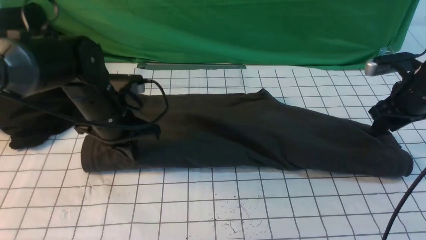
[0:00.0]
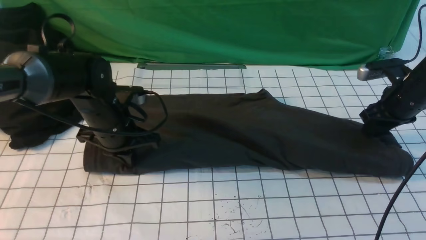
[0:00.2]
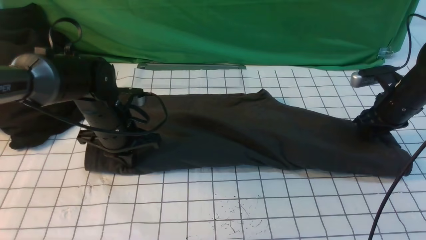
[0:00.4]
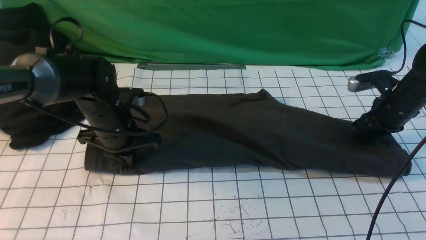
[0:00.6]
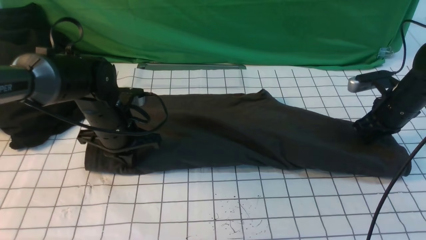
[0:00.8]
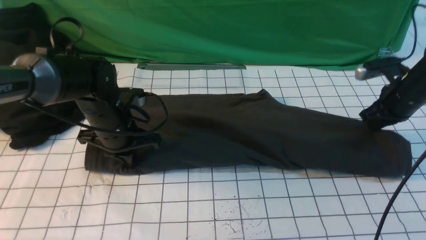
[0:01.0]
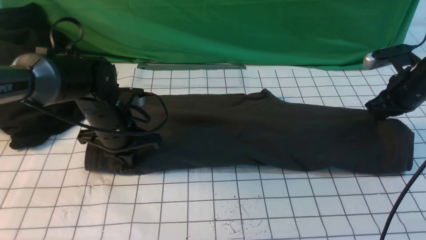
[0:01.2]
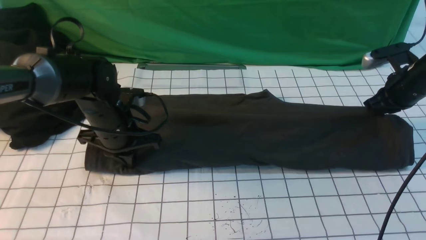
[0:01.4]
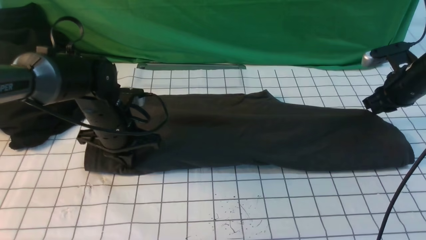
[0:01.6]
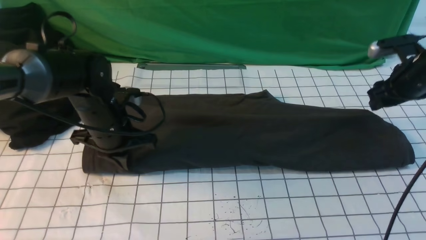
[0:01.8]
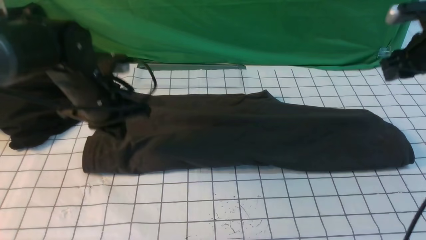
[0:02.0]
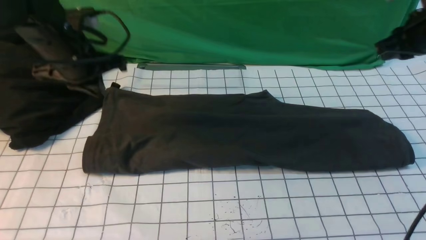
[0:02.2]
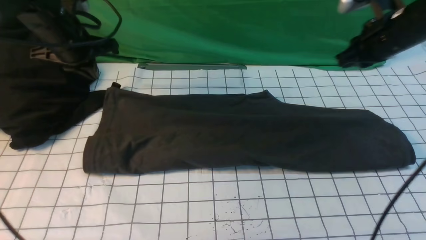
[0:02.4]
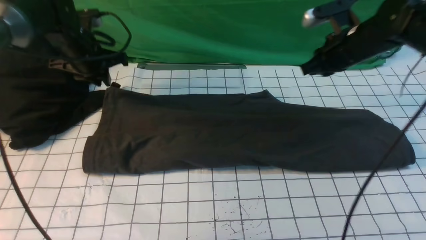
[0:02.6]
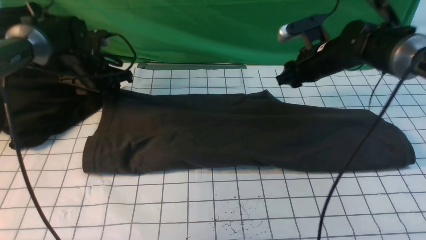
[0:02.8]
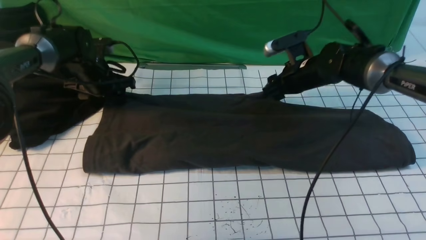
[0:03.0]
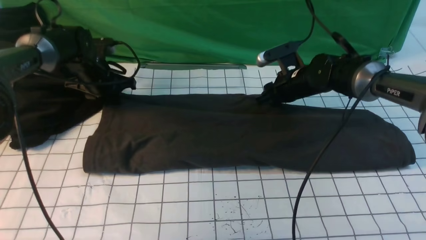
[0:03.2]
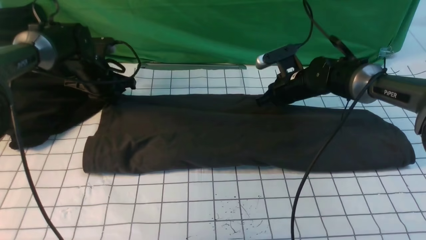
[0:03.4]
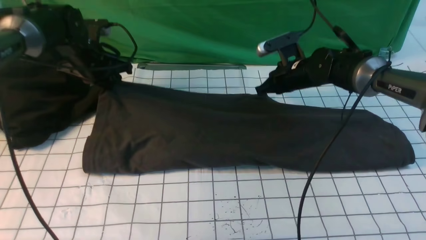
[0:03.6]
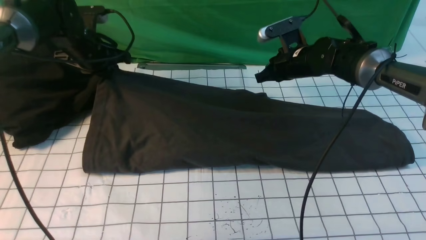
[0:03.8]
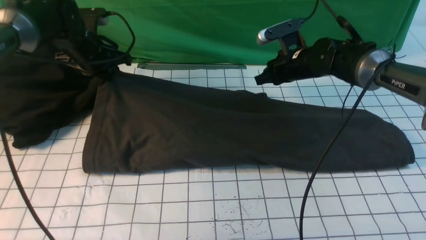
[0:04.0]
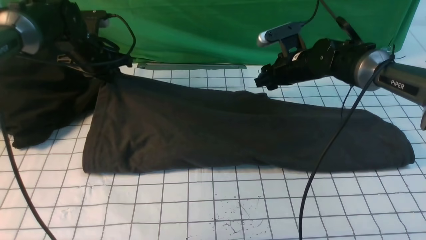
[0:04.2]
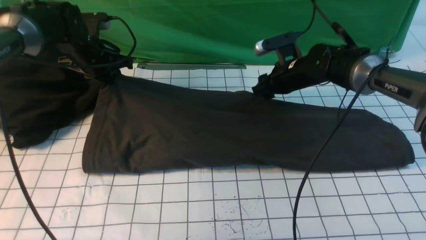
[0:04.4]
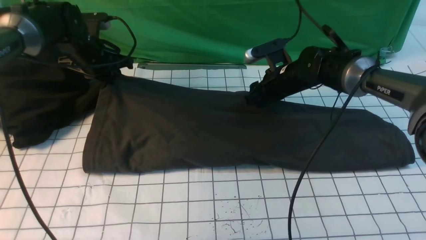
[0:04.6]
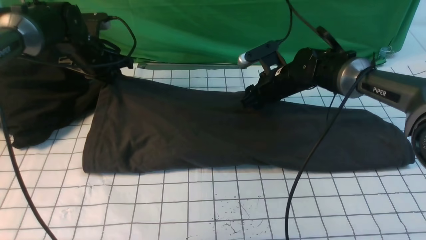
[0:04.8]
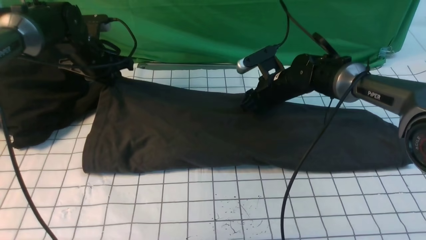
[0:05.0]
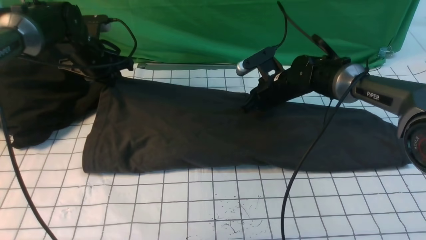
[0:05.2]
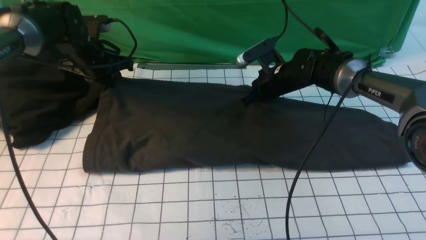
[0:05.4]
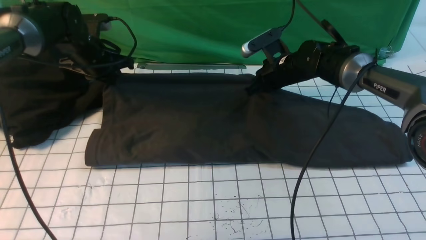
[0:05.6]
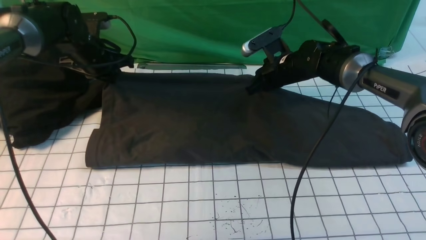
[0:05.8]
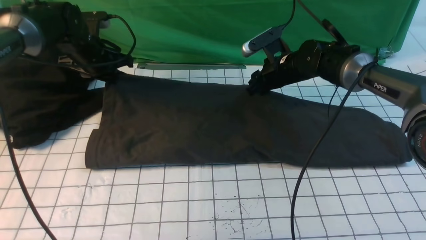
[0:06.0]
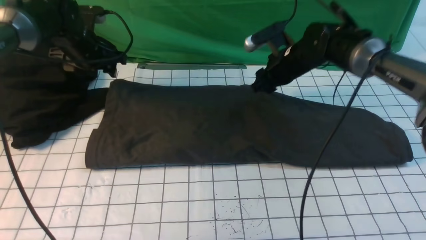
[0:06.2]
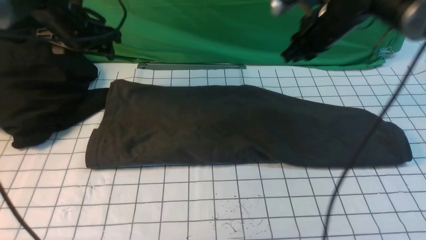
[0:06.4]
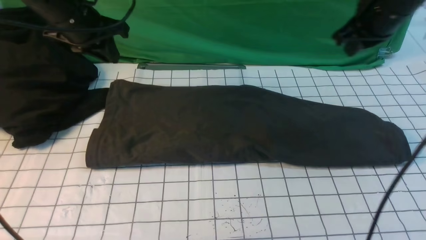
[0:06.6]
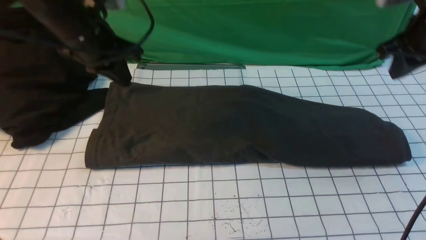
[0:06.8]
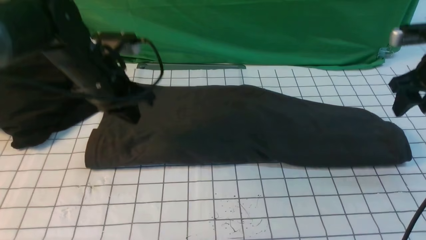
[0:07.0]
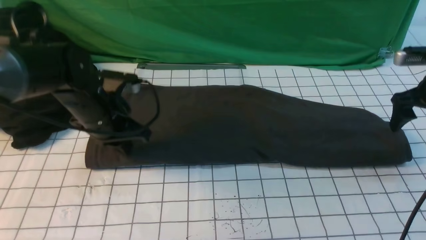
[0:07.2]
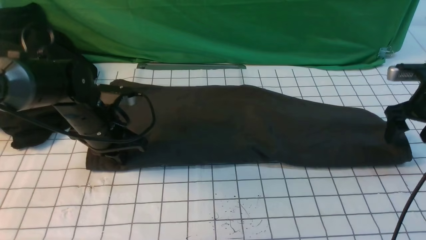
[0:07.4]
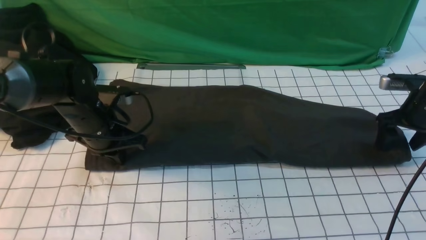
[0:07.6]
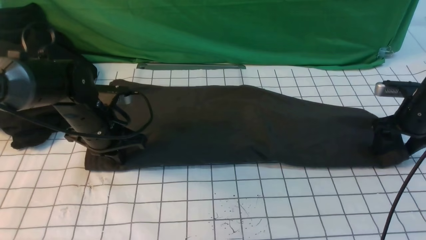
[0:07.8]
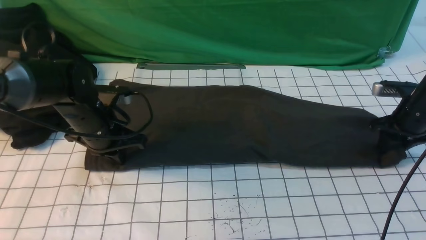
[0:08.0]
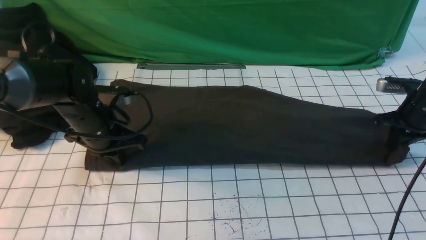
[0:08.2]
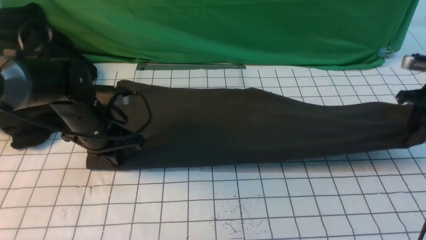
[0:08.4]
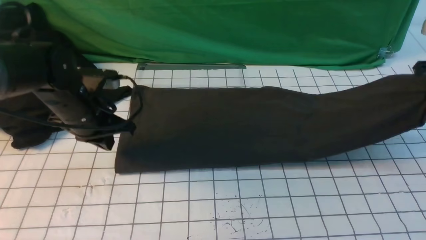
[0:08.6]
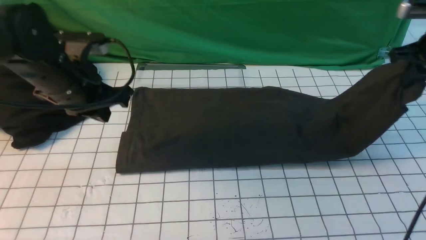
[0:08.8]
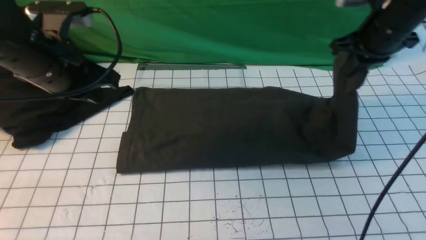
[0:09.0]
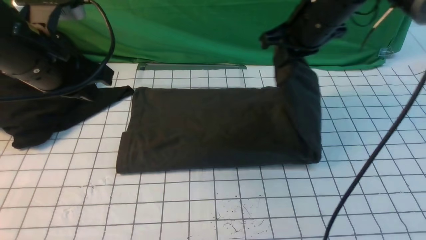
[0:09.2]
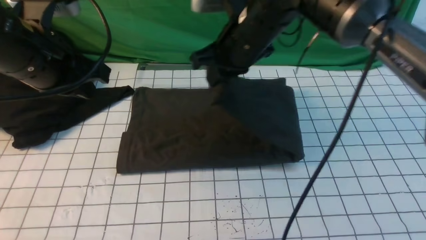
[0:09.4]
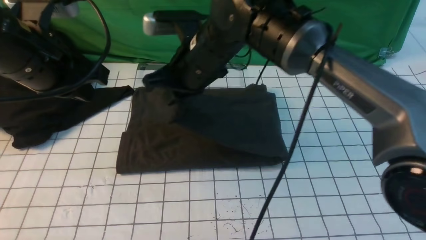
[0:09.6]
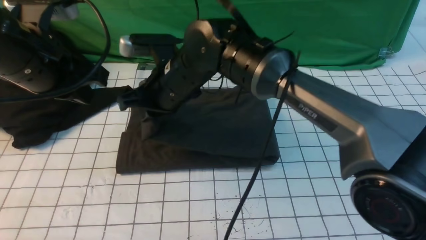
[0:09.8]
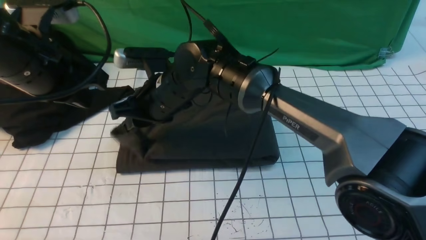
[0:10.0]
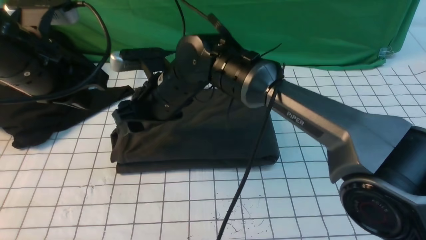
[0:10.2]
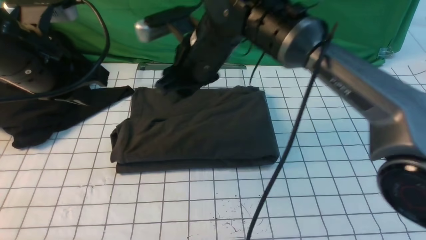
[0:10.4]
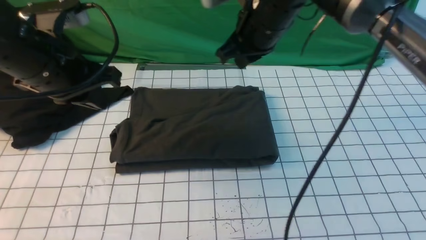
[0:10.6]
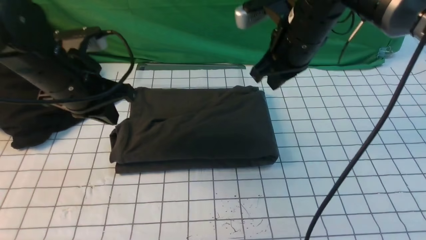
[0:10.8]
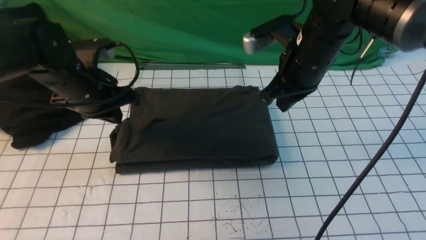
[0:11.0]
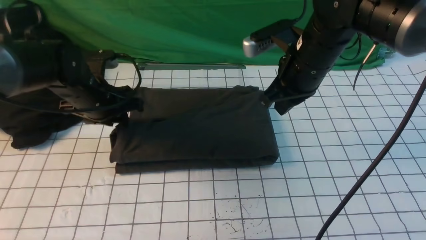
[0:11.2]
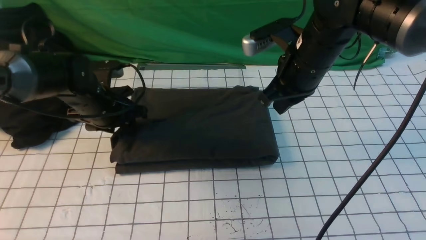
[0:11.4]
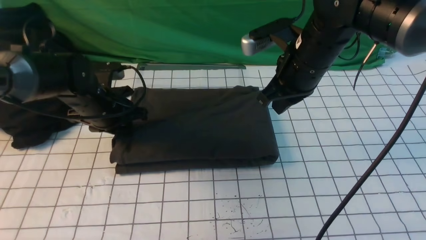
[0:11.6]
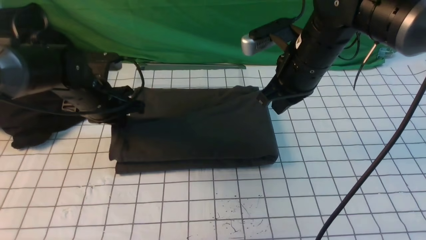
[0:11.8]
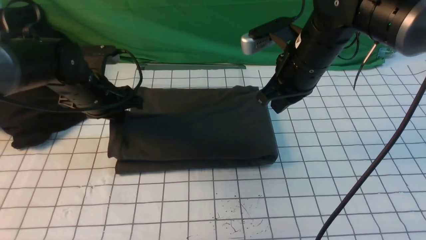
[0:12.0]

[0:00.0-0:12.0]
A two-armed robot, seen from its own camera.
Step, 0:00.0 to 0:08.0: use the right arm to clamp the right edge of the fabric.
Step, 0:08.2 to 0:10.0: use the right arm to drag the right edge of the fabric to the left and folds it over the left edge.
0:00.0 to 0:01.6: The right gripper closes and opens again.
0:01.6 to 0:03.0: The left gripper is displaced forward and to the left by roughly 15 cm, and opens up. Meanwhile the right gripper moves to the left, approximately 20 cm, and closes, then reopens.
0:03.0 to 0:04.4: The left gripper closes up; the right gripper closes and opens again.
0:04.4 to 0:06.0: The left gripper opens, while the right gripper closes, then opens again.
0:06.0 to 0:07.6: The right gripper goes approximately 25 cm to the right, and opens; the left gripper moves backward and downward, about 15 cm, and closes its fingers.
0:07.6 to 0:09.0: The right gripper is displaced to the left and upward by about 20 cm, and closes; the left gripper moves upward, approximately 15 cm.
0:09.0 to 0:10.4: The right gripper goes some 20 cm to the left, and opens up.
0:10.4 to 0:12.0: The right gripper heads to the right, covering some 10 cm, and closes up. The left gripper is displaced downward and forward by roughly 15 cm, and opens, then closes again.

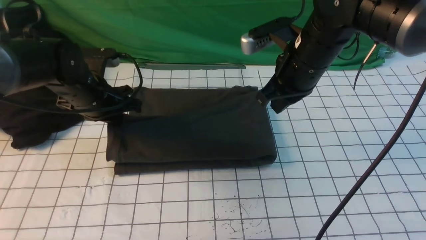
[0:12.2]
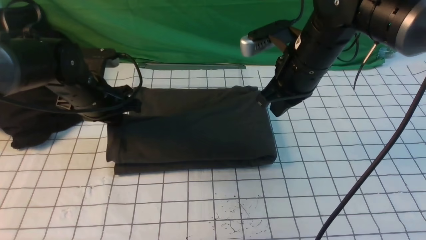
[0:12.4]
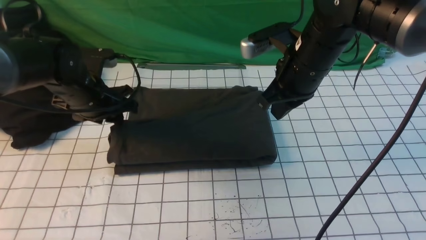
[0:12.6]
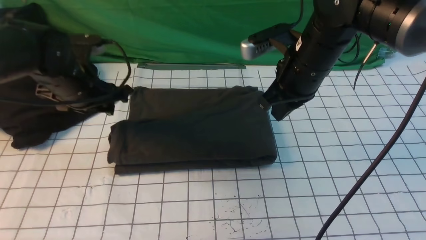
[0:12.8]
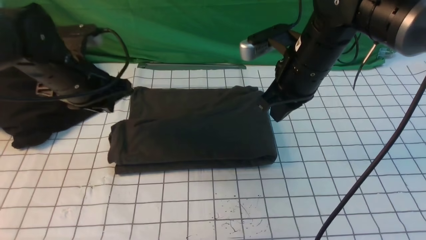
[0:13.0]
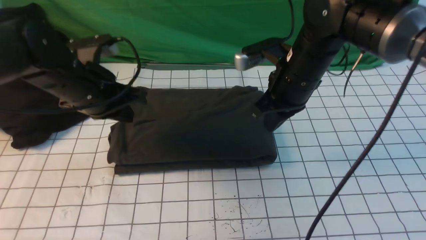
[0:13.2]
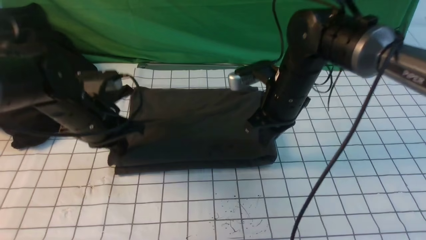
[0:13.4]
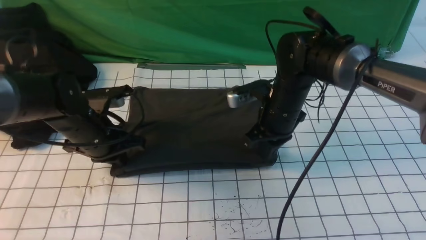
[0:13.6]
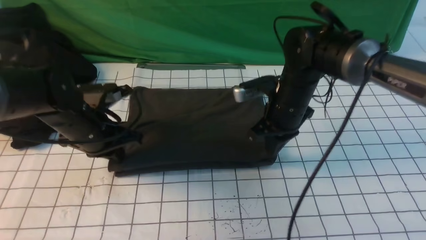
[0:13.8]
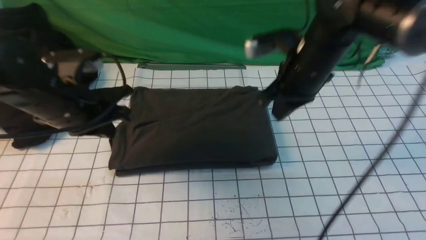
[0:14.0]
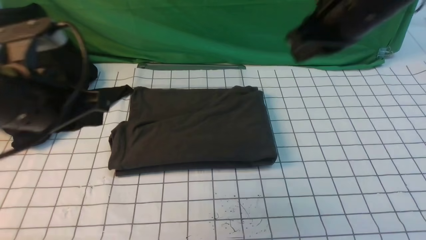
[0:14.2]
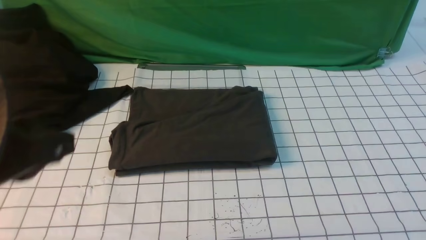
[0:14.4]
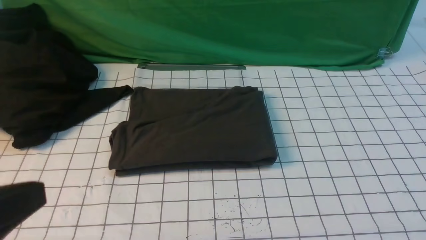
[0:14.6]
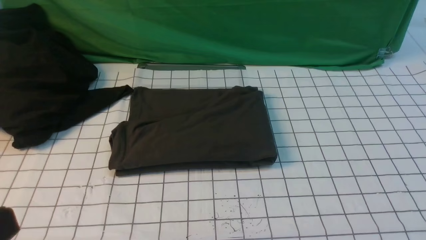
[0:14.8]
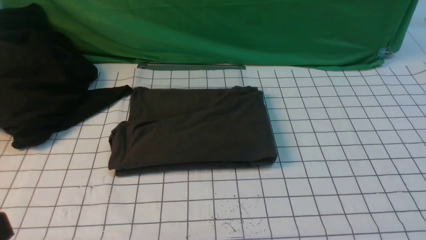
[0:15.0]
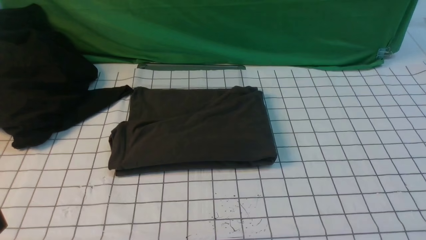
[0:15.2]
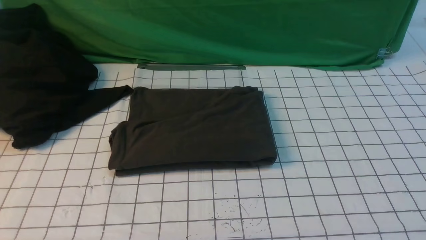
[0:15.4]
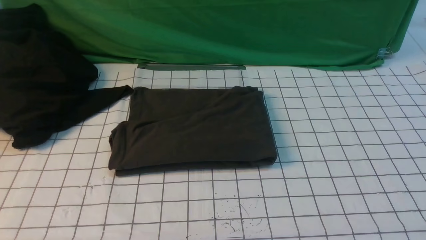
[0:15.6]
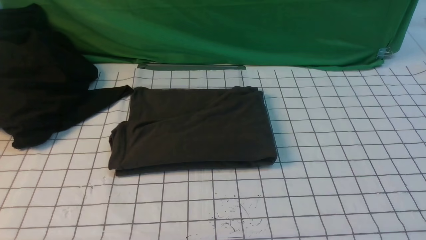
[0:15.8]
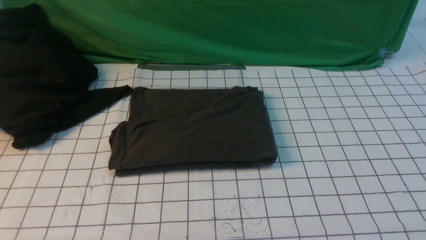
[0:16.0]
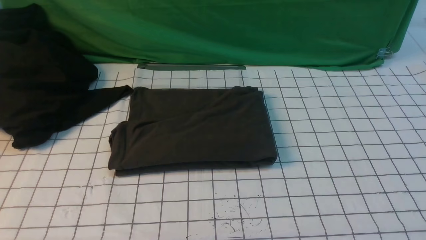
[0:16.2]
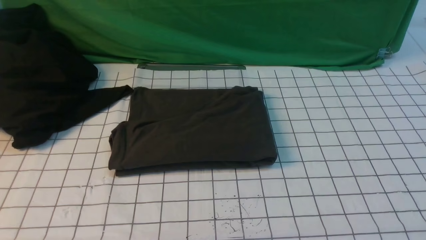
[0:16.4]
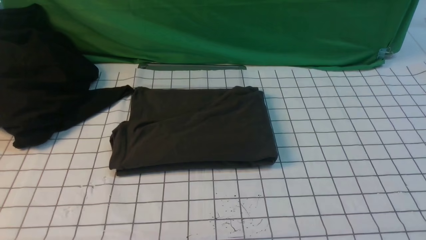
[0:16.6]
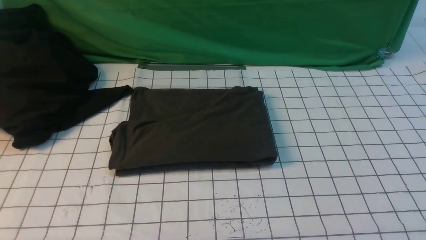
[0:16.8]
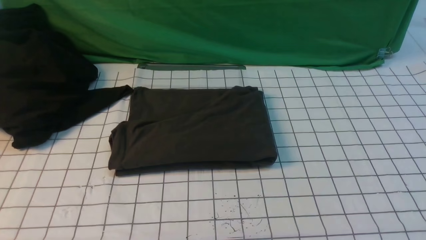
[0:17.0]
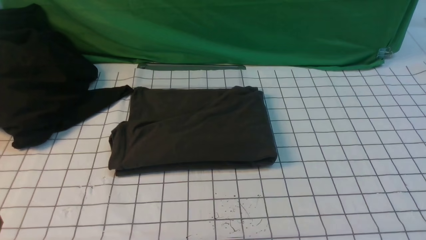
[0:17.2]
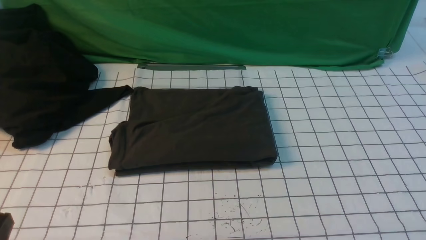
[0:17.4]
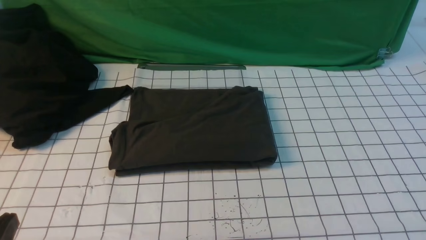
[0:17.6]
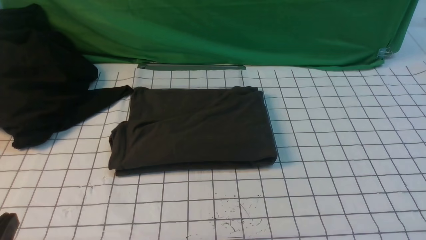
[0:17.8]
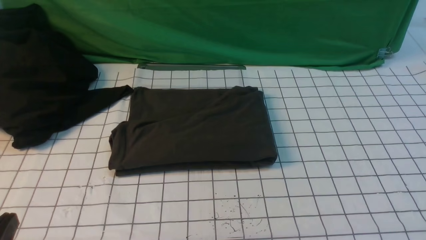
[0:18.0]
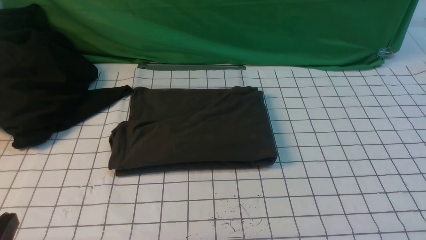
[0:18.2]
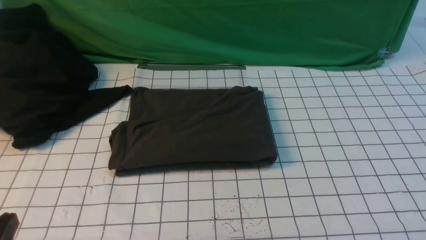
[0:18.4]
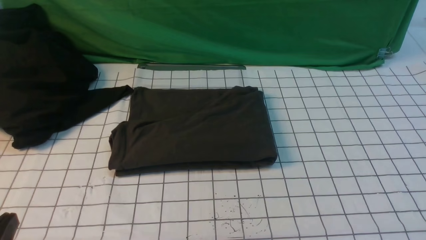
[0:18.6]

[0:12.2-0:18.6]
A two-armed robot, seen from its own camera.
0:12.2 to 0:13.8: The left gripper heads backward, covering approximately 5 cm, and opens and closes again. The right gripper is displaced downward by approximately 5 cm.
0:13.8 to 0:15.4: The left gripper goes some 35 cm backward and upward. The right gripper goes some 40 cm backward and to the right.
